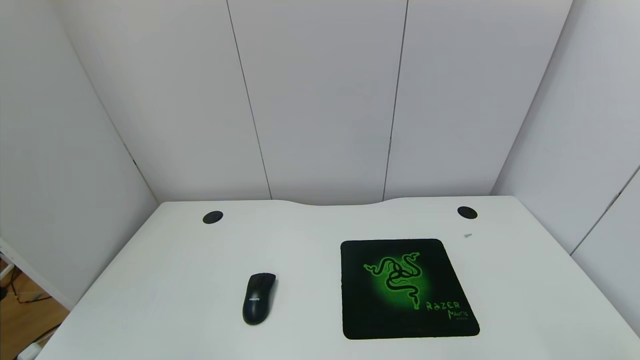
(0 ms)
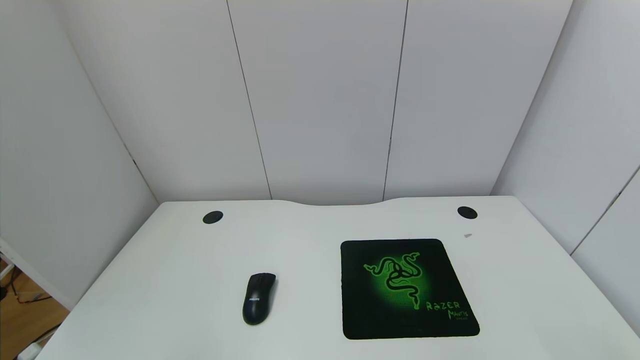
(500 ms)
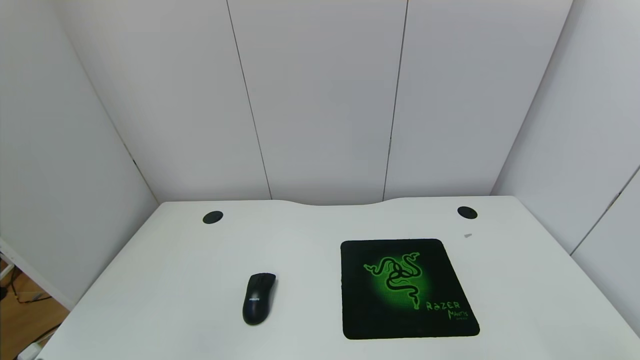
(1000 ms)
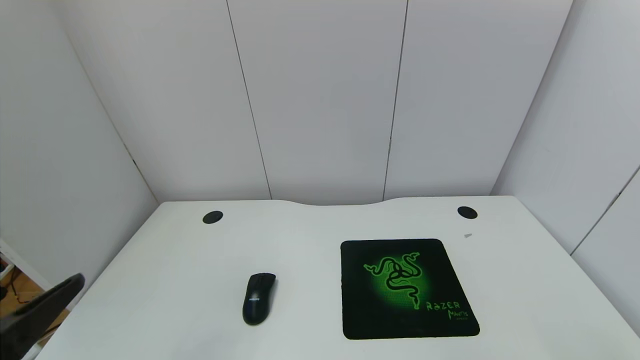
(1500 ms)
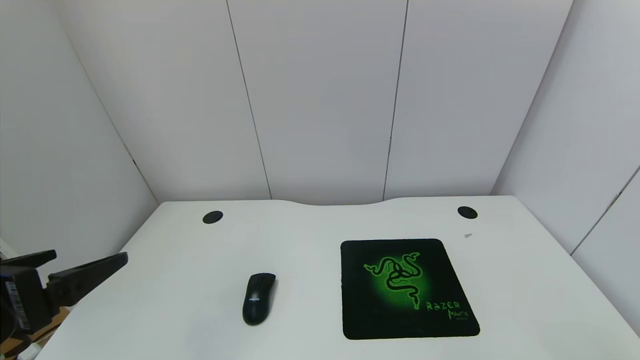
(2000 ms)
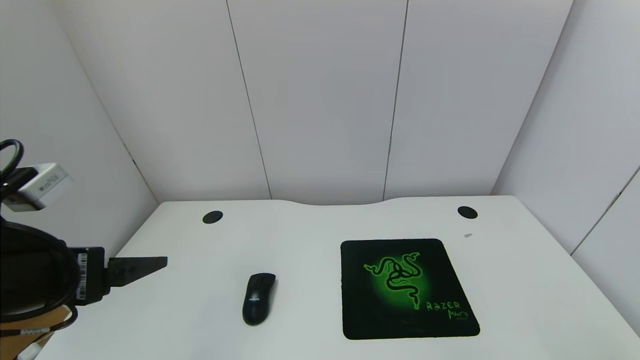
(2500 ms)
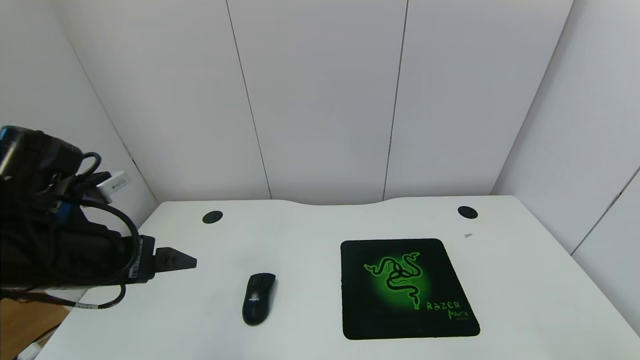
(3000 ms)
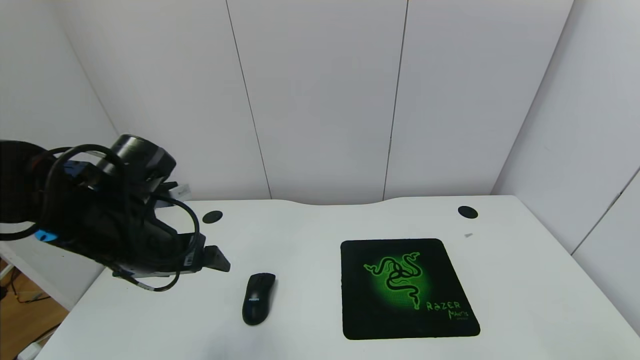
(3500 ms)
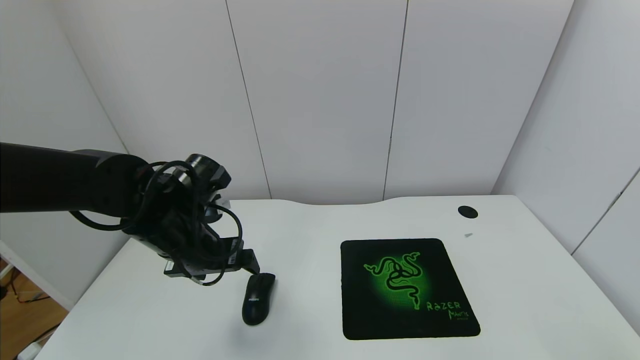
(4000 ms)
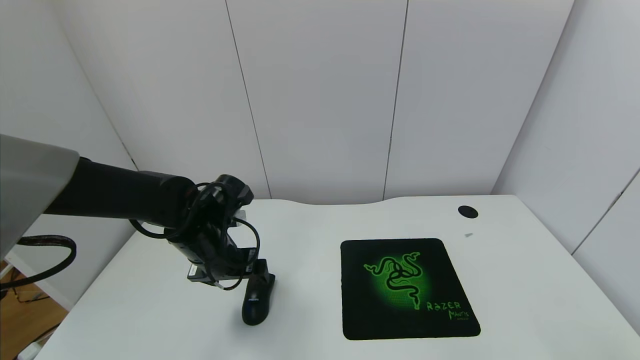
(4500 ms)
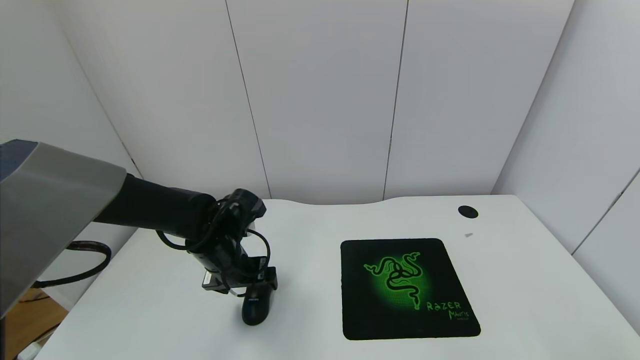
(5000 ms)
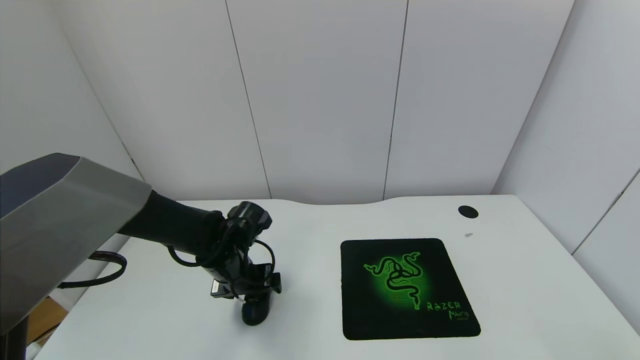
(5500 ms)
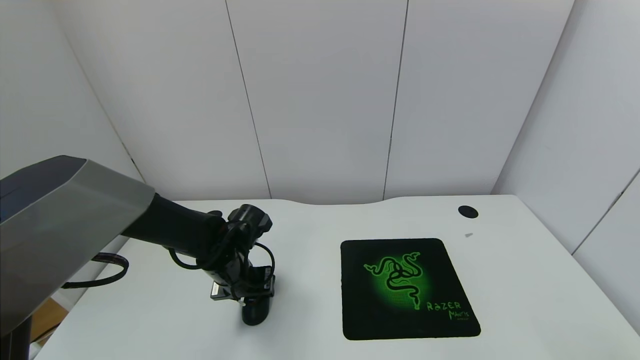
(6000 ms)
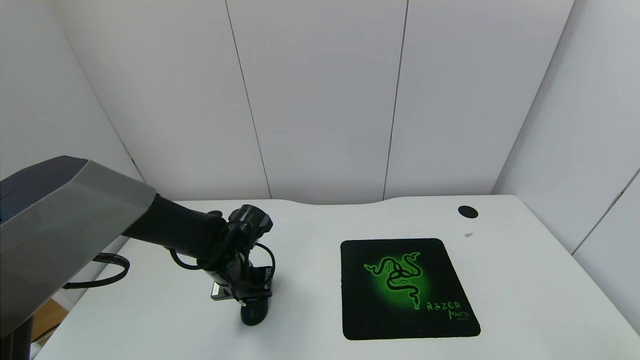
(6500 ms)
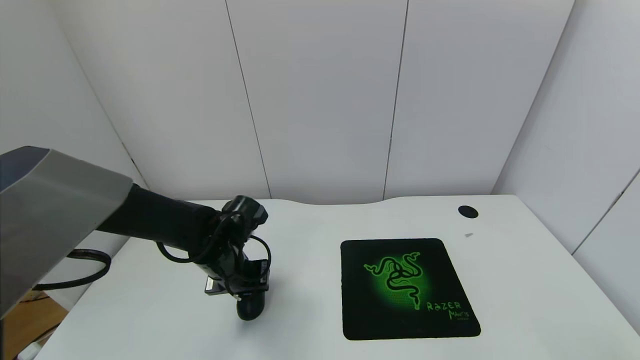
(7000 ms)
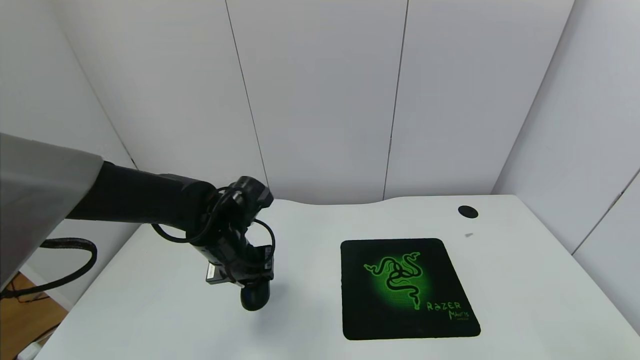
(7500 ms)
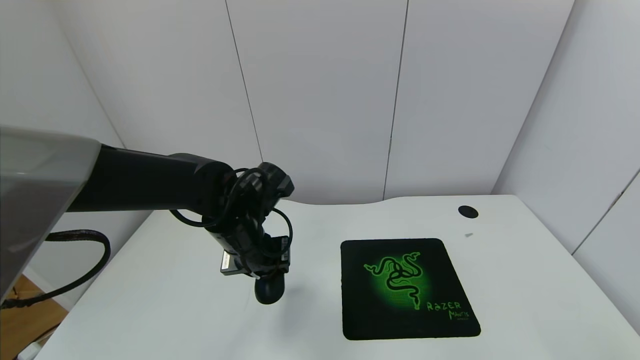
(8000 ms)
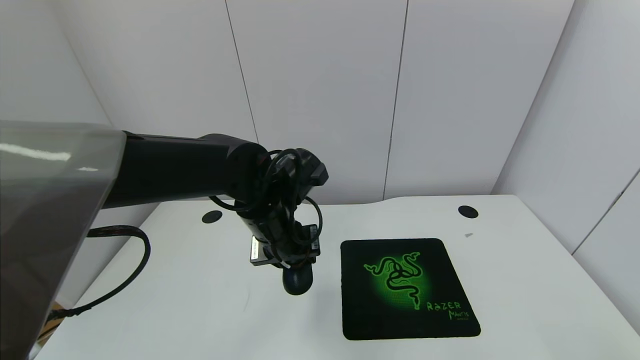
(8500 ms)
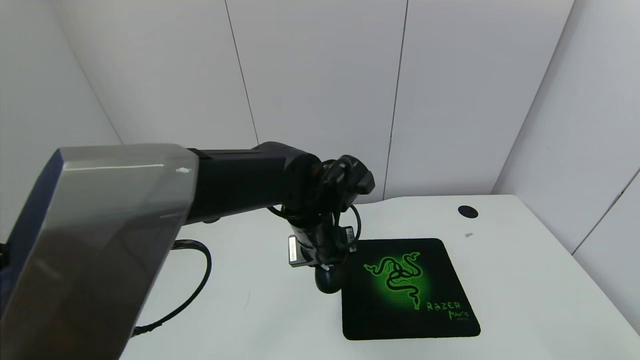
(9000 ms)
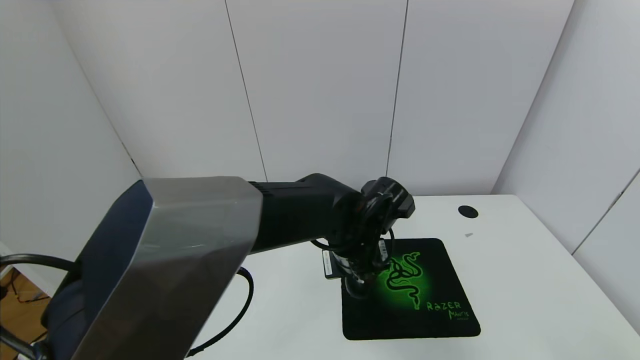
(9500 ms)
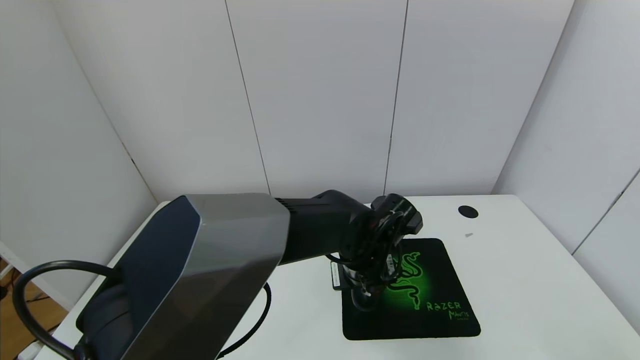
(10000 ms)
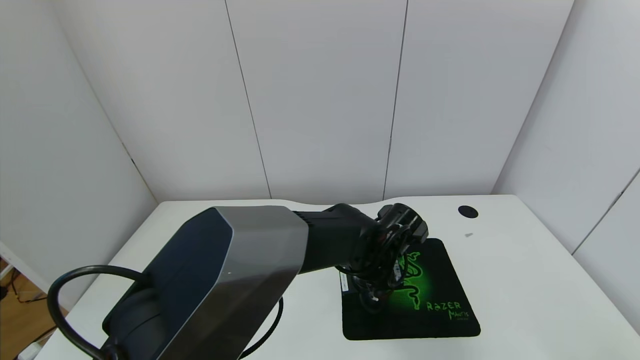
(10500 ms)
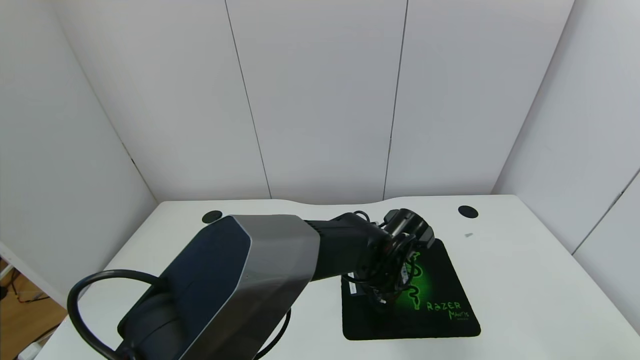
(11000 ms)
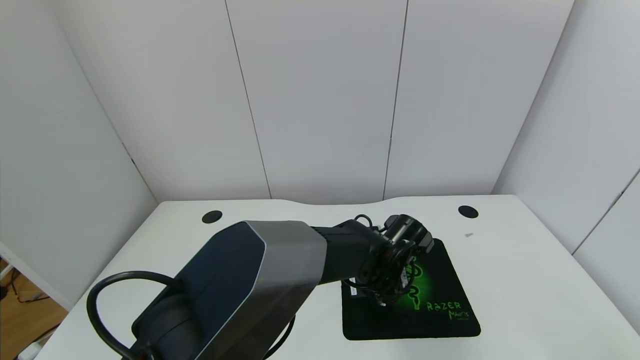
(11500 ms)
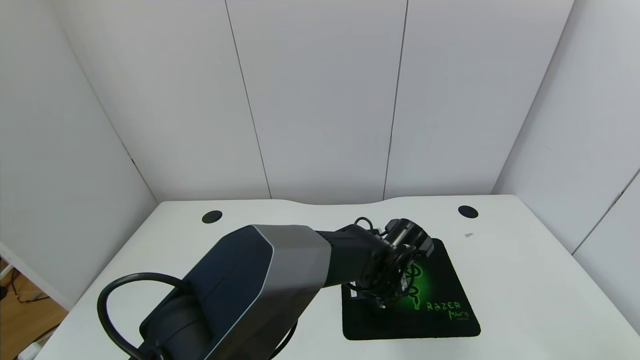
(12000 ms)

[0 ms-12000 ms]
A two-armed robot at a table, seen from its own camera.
Task of the whole recording: use the gripper to move the mouse from one side of the table to the mouse pad on the opposite side.
Step, 0 ms to 6500 ms: Grasp the mouse with the left gripper.
0 ms to 2000 ms: The left gripper moves upward and forward, approximately 20 cm.
2000 ms to 4000 ms: The left gripper goes roughly 20 cm forward and to the right.
4000 ms to 6000 ms: The left gripper goes roughly 10 cm downward, and closes.
6000 ms to 8000 ms: The left gripper is displaced upward by some 10 cm, and closes up.
8000 ms to 10000 ms: The left gripper travels to the right by roughly 15 cm.
10000 ms to 12000 ms: The left gripper moves downward, approximately 5 cm.

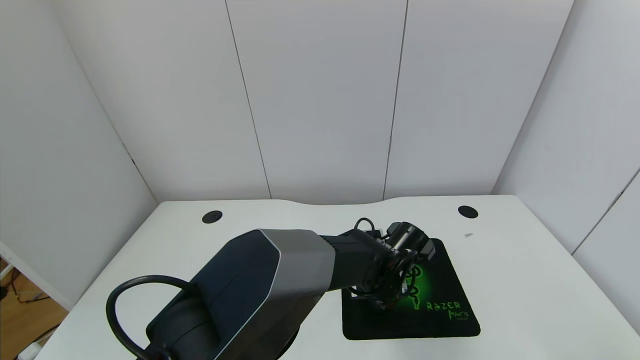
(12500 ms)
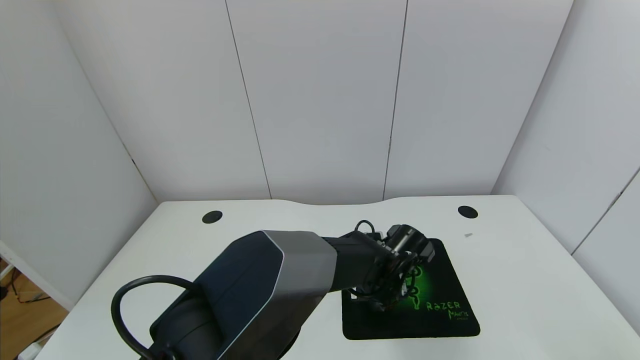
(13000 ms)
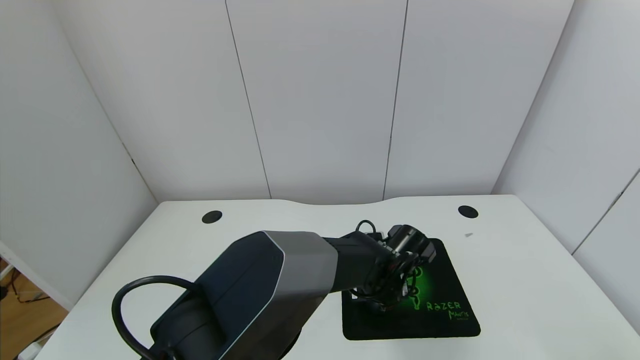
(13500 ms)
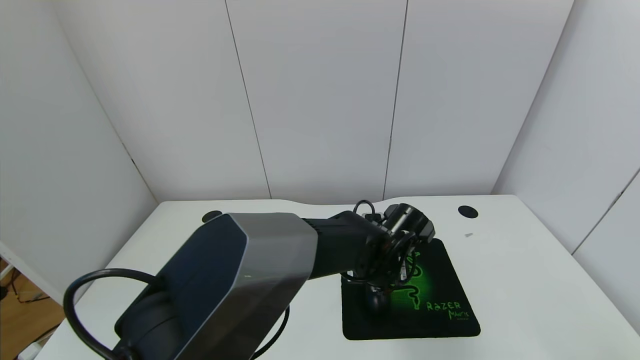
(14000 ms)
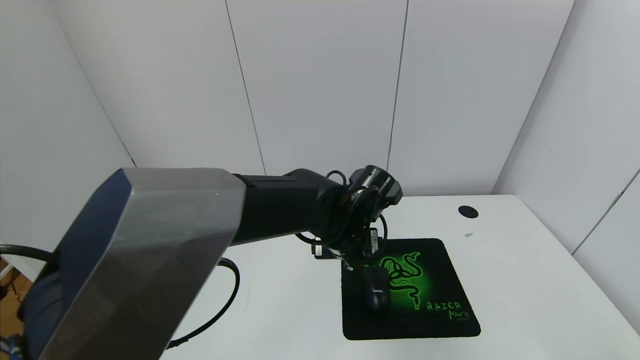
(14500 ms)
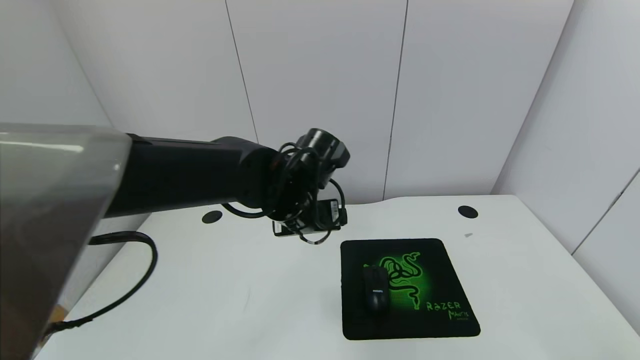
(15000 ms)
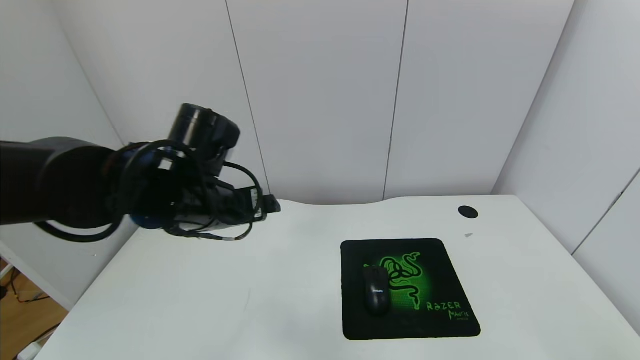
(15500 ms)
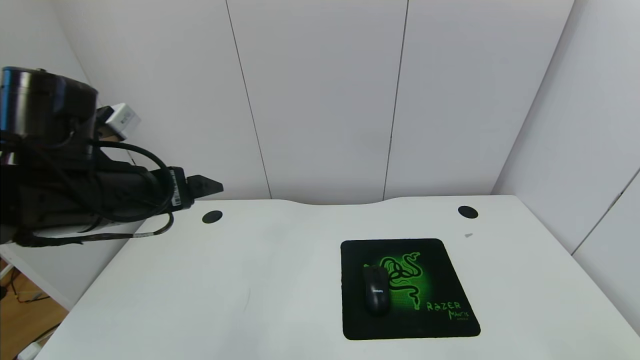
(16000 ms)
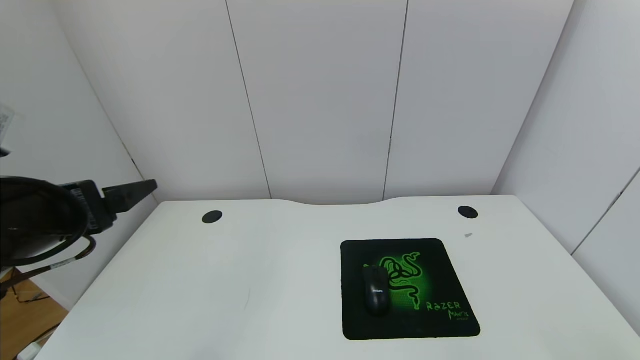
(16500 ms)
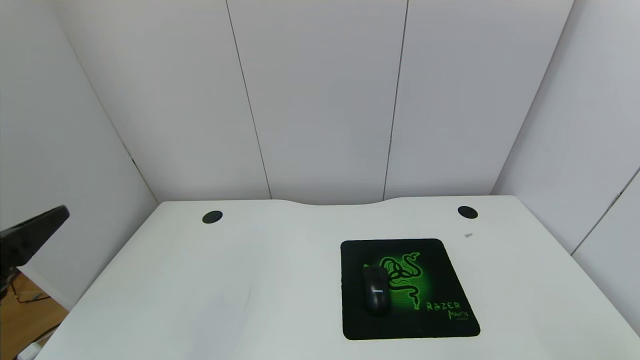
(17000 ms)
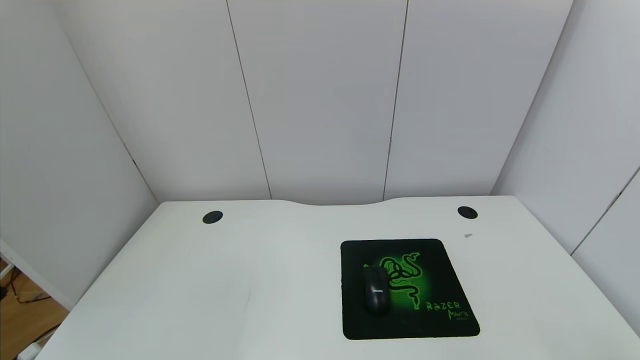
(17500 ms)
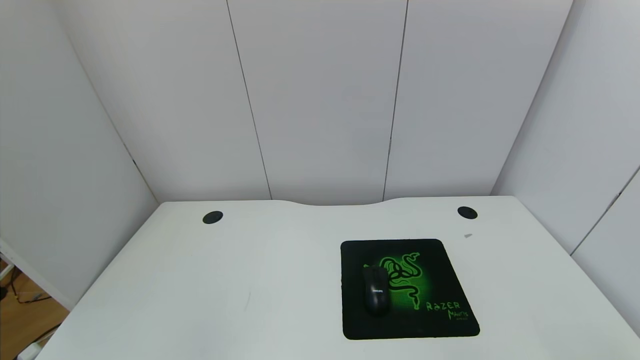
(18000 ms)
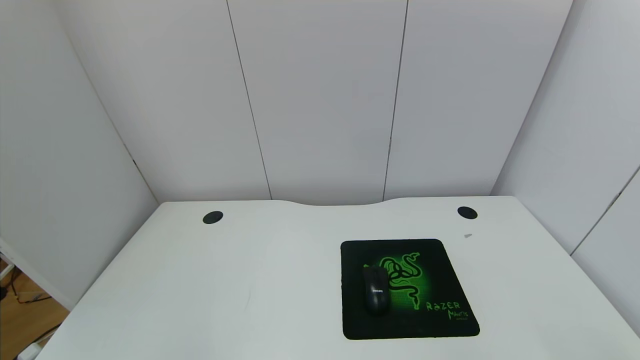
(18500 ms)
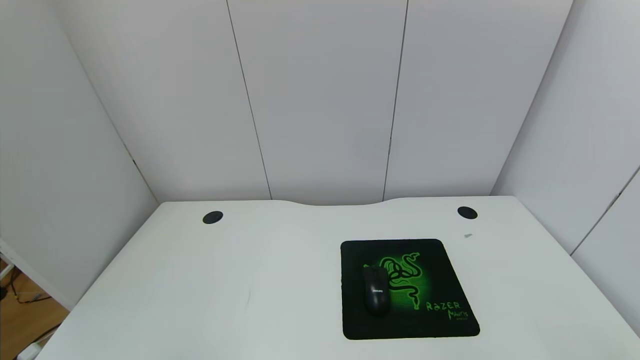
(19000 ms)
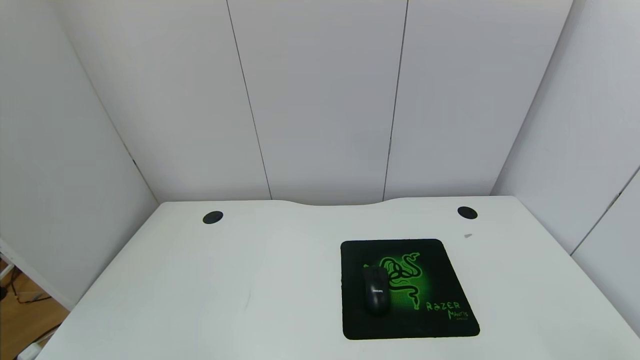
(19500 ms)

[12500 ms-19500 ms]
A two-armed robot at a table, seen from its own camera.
Task of the whole recording: use the gripper to move the mouse from one side of the table to the mouse pad on the opposite side.
Step, 12500 ms to 14500 ms: Place the mouse on the mouse pad with the left gripper.
12500 ms to 14500 ms: The left gripper is displaced upward and to the left by roughly 10 cm, and opens.
14500 ms to 16000 ms: The left gripper is displaced to the left and upward by approximately 25 cm.
16000 ms to 17500 ms: The left gripper goes approximately 20 cm backward.
